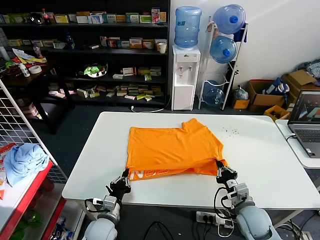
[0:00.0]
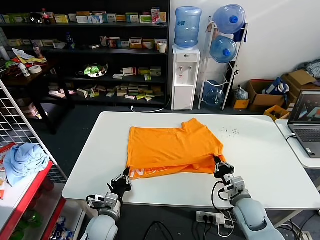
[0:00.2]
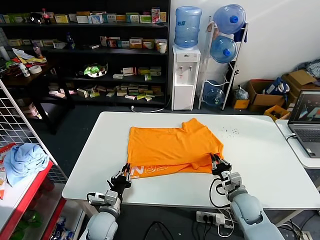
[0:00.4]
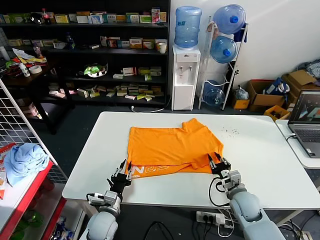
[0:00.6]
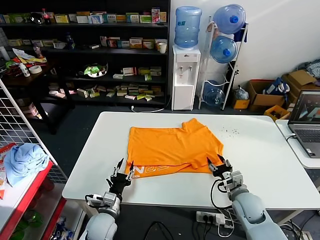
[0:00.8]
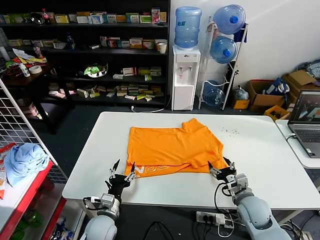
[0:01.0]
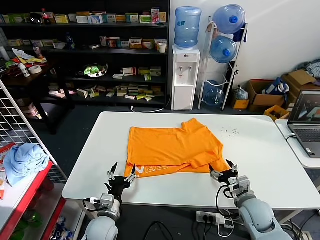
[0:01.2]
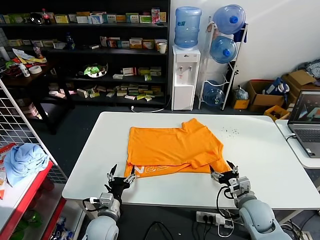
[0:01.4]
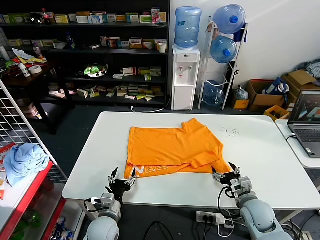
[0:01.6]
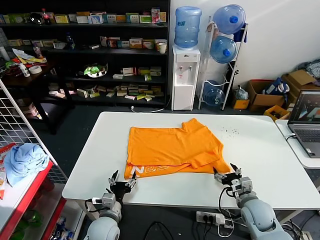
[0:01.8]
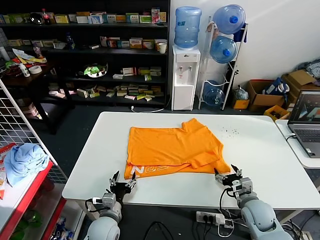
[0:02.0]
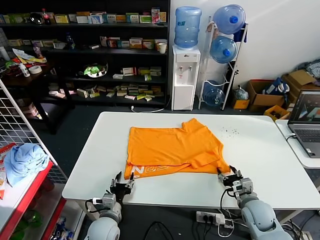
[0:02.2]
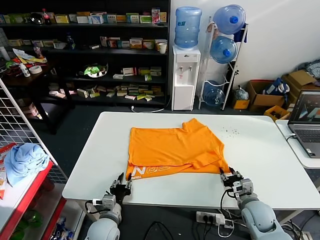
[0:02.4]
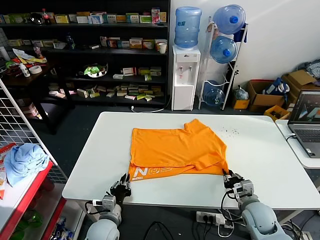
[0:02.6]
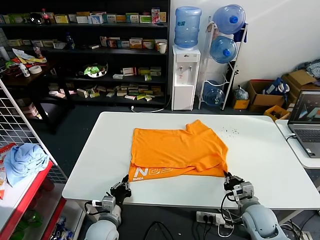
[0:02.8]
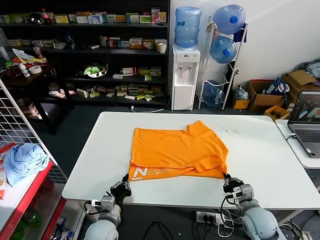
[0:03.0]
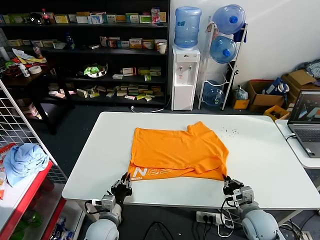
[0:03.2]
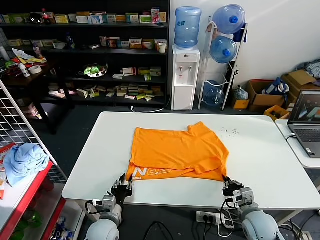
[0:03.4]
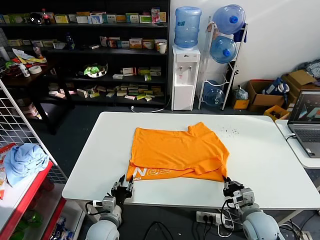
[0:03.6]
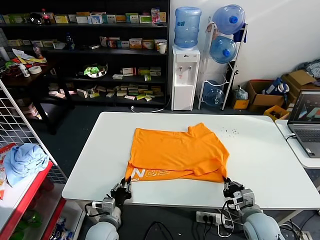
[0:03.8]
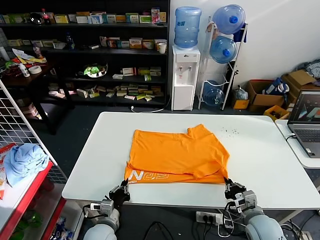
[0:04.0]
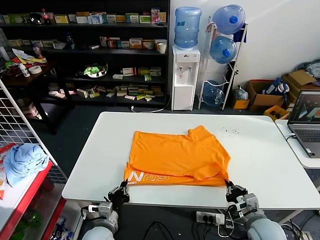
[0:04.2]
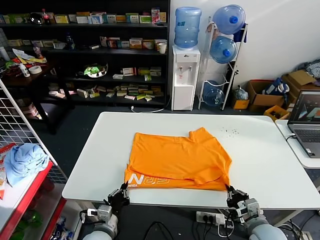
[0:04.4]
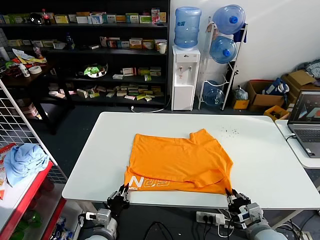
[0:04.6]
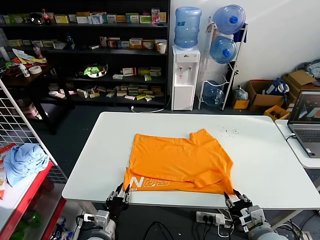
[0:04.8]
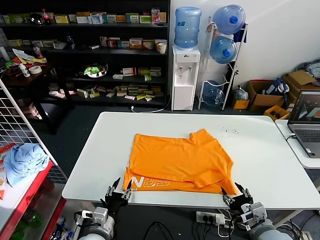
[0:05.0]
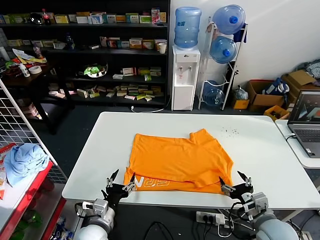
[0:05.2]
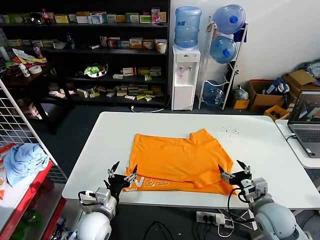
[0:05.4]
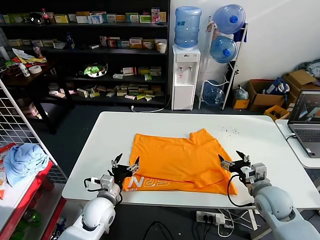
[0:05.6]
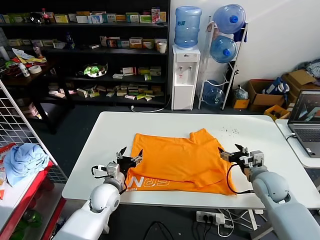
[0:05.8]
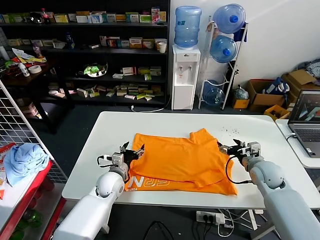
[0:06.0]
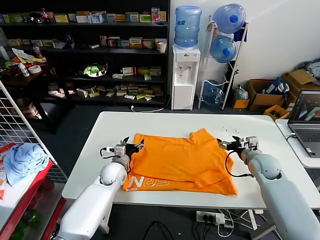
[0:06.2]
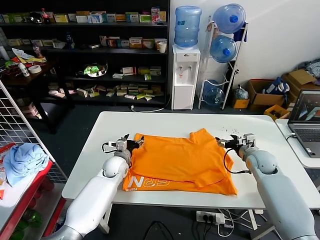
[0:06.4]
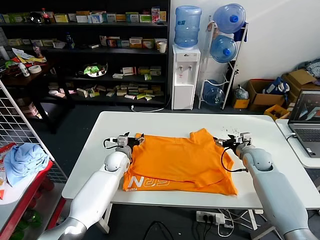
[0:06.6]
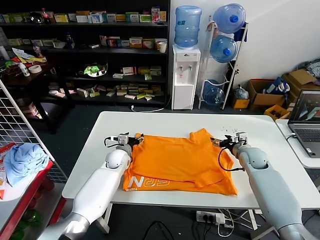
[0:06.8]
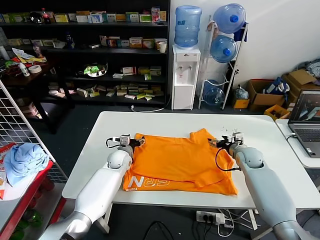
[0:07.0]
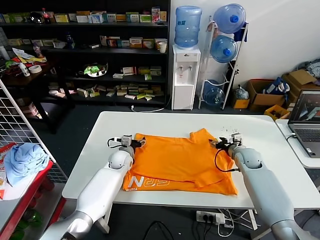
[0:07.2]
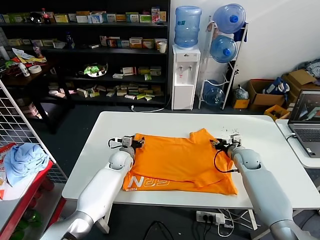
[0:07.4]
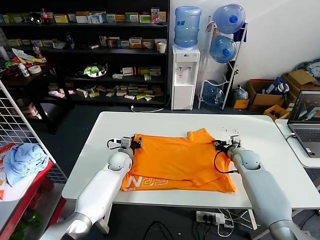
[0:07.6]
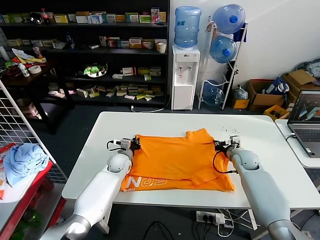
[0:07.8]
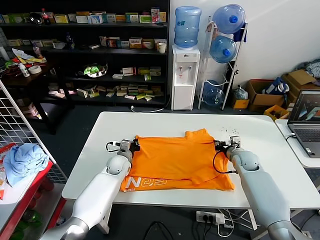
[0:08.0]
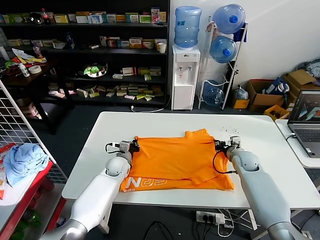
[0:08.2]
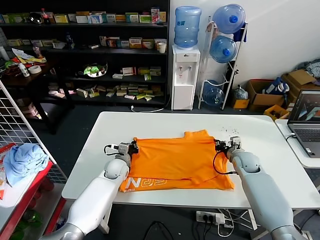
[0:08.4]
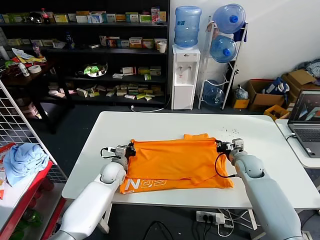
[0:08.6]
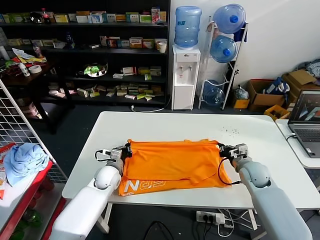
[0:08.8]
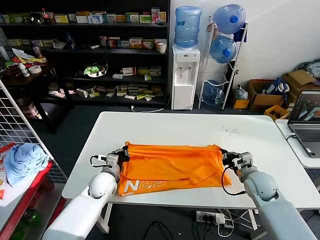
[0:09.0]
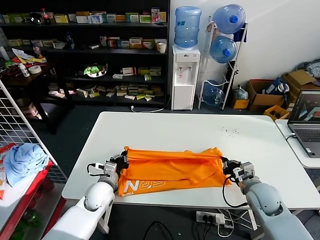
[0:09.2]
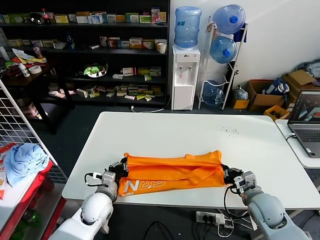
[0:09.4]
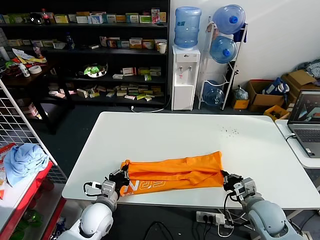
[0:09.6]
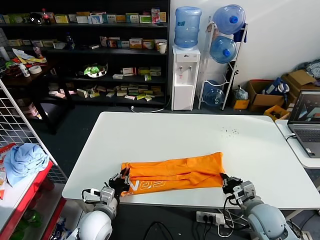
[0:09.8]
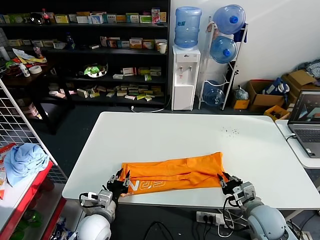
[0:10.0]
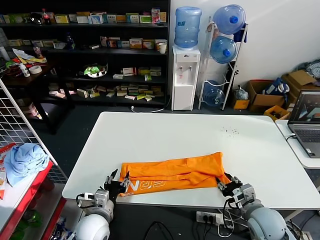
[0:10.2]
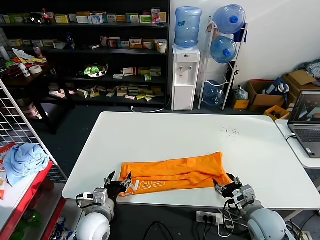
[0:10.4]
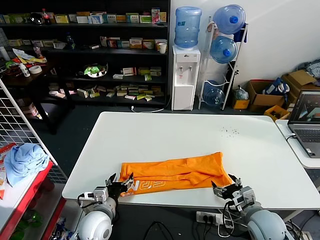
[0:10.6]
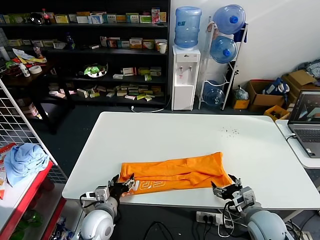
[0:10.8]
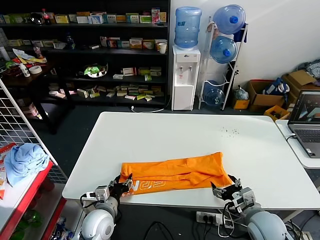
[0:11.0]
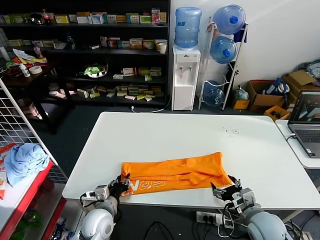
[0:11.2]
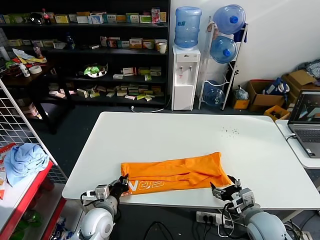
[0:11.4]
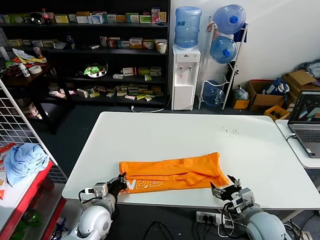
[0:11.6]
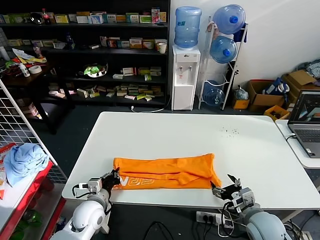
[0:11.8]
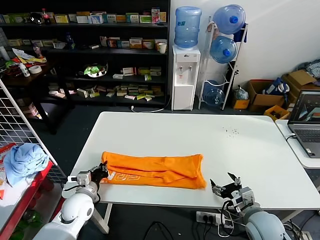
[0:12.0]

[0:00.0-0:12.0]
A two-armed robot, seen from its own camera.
Task of the whole recording: fold and organize the clothes.
Step, 0:01.4 to 0:05.0: Drag the clothes downward with both gripper.
Step, 0:05.2 to 0:08.2: use both grippers simultaneously to clamp the upper edge of the clothing fabric.
Step, 0:08.4 to 0:10.4: use both grippers to drag the upper edge of the fabric backward and fold it over the lower edge.
Step, 0:10.6 to 0:11.6: use the left gripper to clamp the left edge of the fabric.
0:00.0 to 0:01.6: The left gripper opens. The right gripper opens up.
0:01.6 to 0:03.0: The left gripper closes its fingers. The right gripper closes its fingers.
0:03.0 to 0:04.4: The left gripper opens and closes again. Meanwhile the right gripper goes approximately 5 cm backward.
0:04.4 to 0:06.0: The grippers both shift forward by approximately 20 cm. The right gripper opens up, while the left gripper opens.
0:06.0 to 0:07.6: The right gripper heads forward and downward, covering some 10 cm, and closes its fingers. Meanwhile the left gripper moves forward, roughly 10 cm, and closes its fingers.
0:07.6 to 0:09.0: The two grippers go some 10 cm backward. The left gripper closes up.
0:09.0 to 0:10.4: Both grippers move backward, approximately 15 cm. The left gripper opens up; the right gripper opens its fingers.
0:10.4 to 0:12.0: The left gripper heads to the left and forward, covering about 10 cm, and closes.

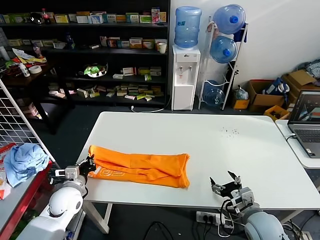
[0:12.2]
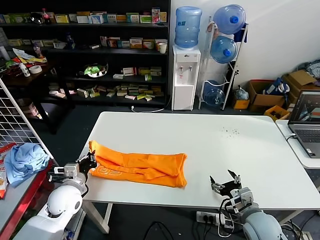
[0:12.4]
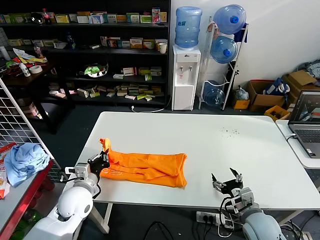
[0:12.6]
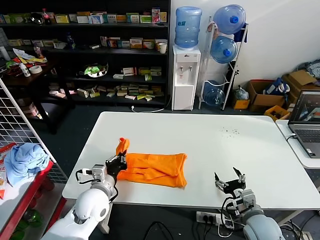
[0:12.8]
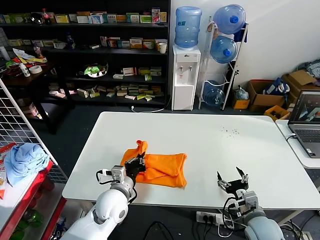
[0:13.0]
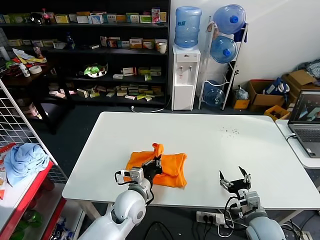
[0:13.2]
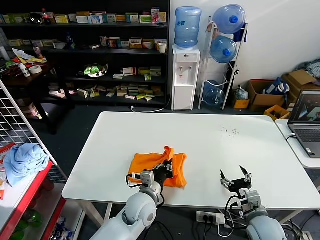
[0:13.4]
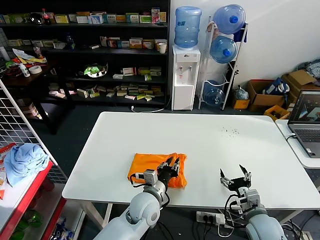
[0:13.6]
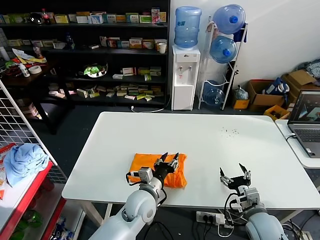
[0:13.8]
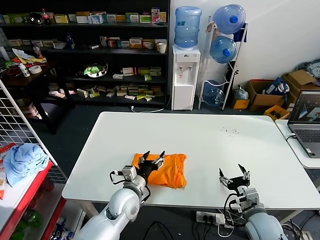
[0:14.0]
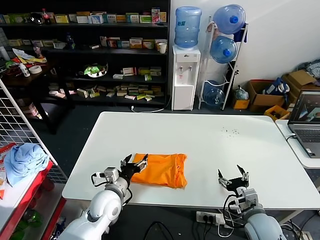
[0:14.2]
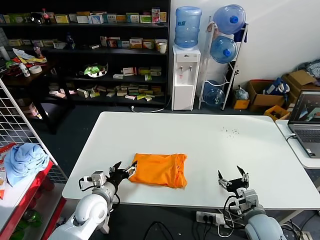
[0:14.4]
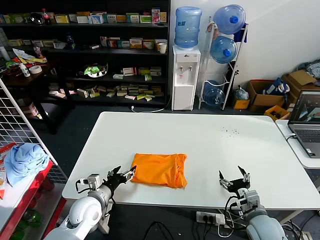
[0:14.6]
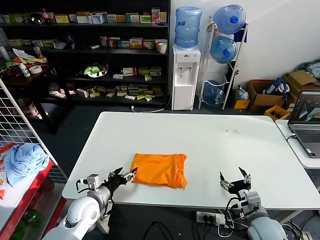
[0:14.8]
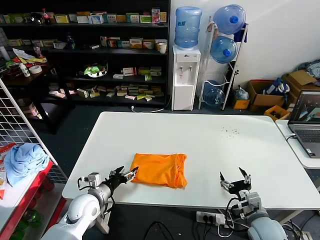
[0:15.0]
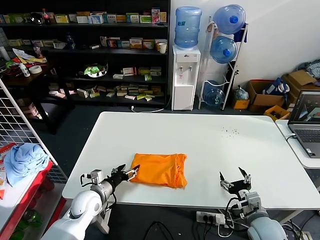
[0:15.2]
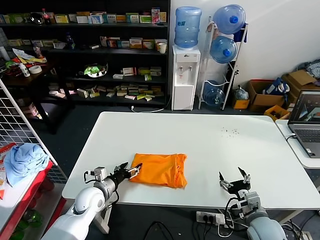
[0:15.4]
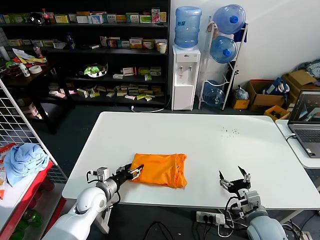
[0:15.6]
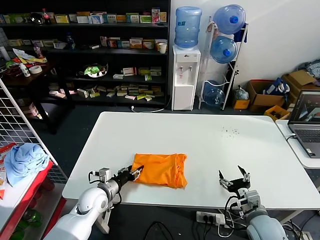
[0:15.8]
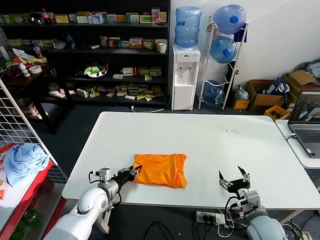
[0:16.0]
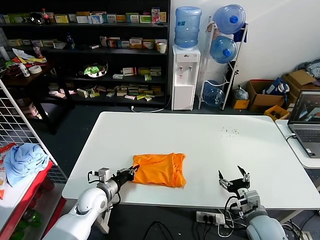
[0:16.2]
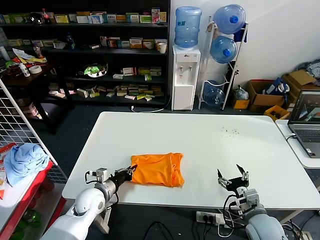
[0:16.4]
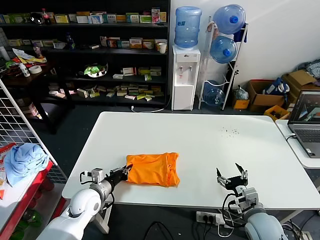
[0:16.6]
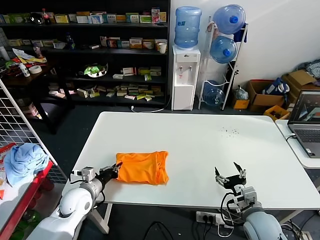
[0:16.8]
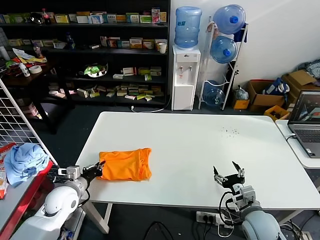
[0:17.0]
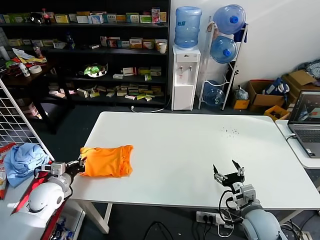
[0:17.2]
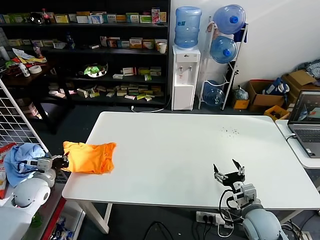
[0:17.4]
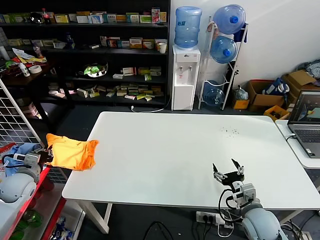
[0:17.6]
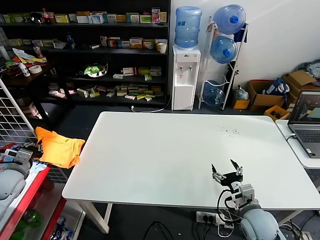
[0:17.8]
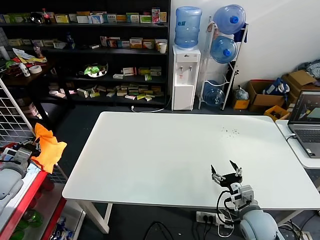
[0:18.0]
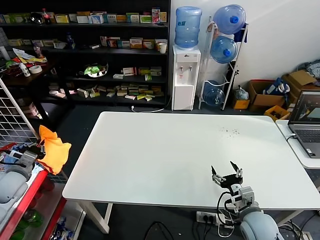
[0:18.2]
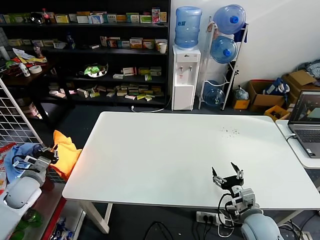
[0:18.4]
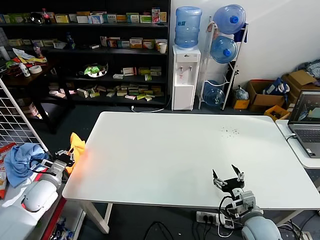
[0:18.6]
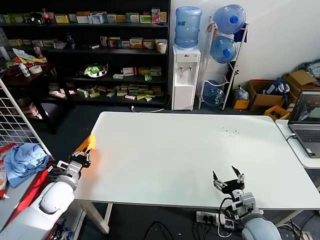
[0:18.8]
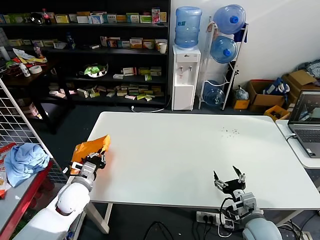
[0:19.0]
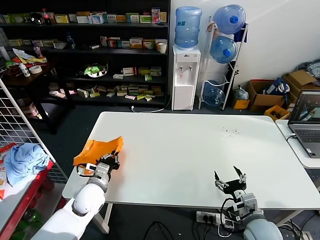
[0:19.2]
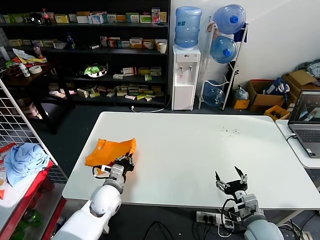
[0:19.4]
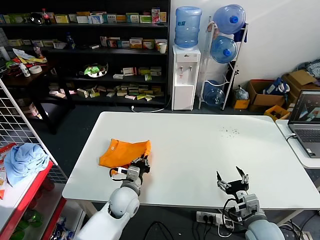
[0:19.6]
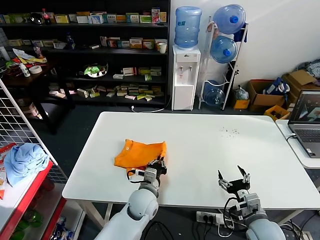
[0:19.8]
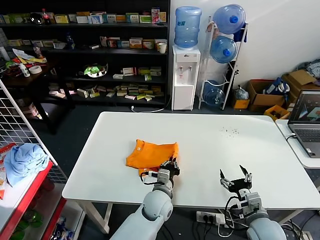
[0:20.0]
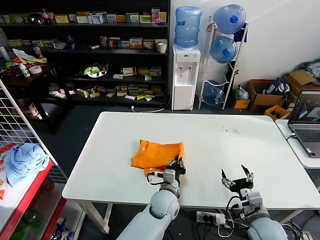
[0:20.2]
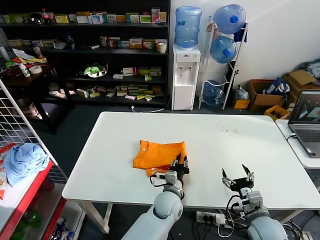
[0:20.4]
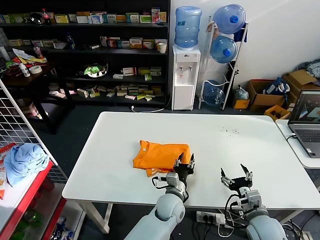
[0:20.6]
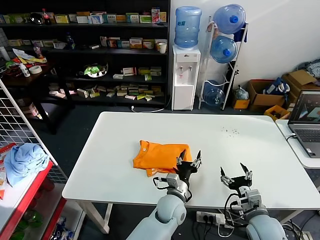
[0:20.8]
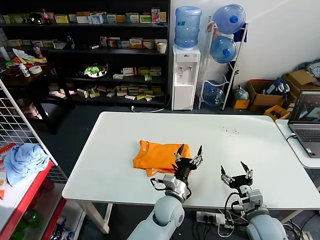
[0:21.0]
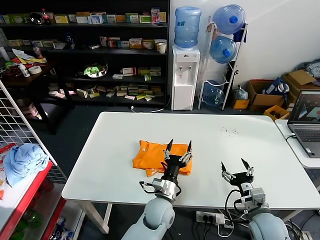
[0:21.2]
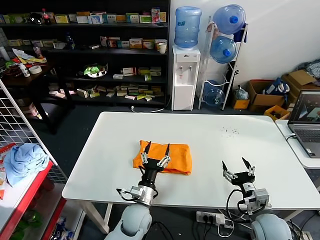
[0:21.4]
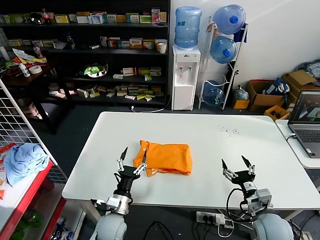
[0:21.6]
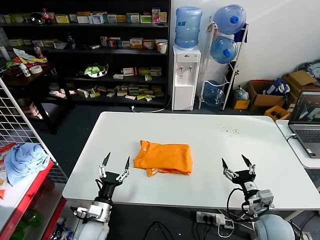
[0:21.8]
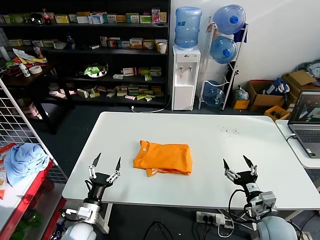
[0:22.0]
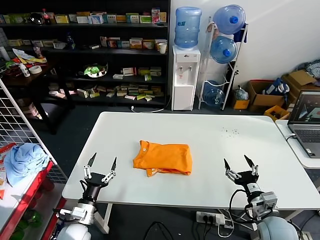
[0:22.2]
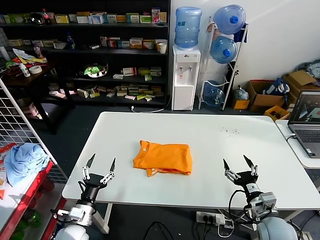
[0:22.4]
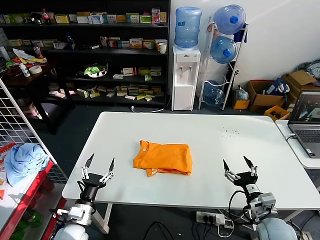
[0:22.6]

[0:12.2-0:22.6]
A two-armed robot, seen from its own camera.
Task of the whole recording: fold and organize the clothes.
Step, 0:12.2 to 0:13.8: use the left gripper to drag the left edge of the fabric to the left and folds it over the right edge.
Step, 0:14.0 to 0:21.0: Flip the folded clothes over with left gripper.
0:12.2 to 0:13.6: The left gripper heads to the right, covering about 25 cm.
0:13.6 to 0:15.2: The left gripper goes about 20 cm to the left, and opens its fingers.
0:15.2 to 0:16.6: The left gripper closes its fingers.
0:16.6 to 0:18.2: The left gripper shifts approximately 25 cm to the left and upward.
0:18.2 to 0:19.6: The left gripper is displaced to the right by about 35 cm.
0:19.6 to 0:21.2: The left gripper is displaced to the right by some 15 cm, and opens up.
0:21.2 to 0:22.6: The left gripper goes roughly 30 cm to the left.
